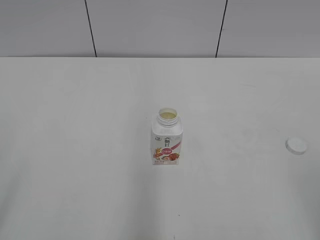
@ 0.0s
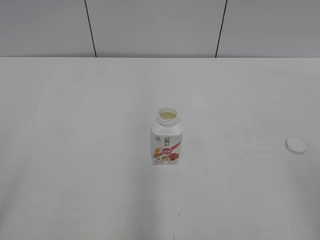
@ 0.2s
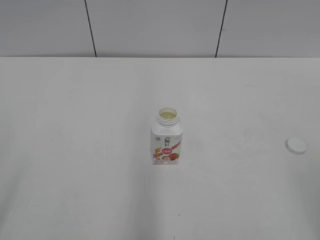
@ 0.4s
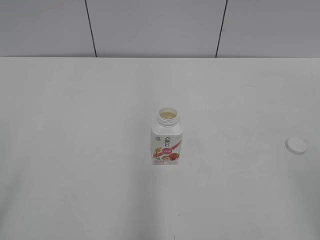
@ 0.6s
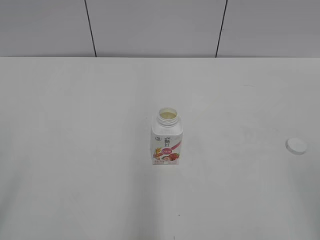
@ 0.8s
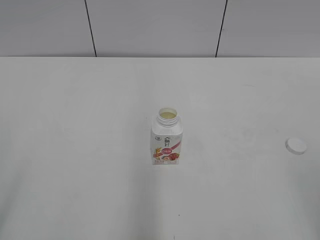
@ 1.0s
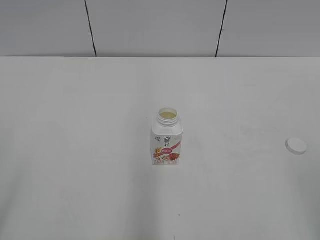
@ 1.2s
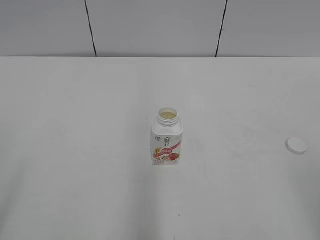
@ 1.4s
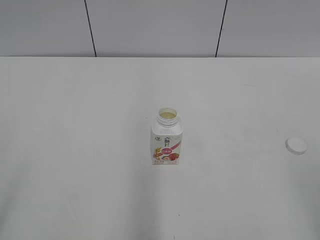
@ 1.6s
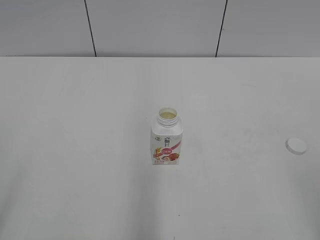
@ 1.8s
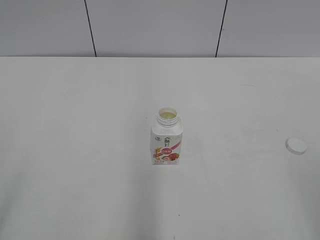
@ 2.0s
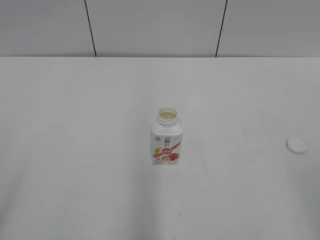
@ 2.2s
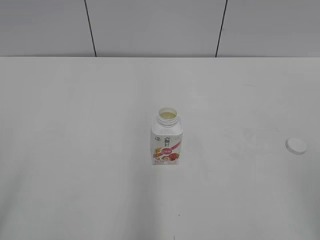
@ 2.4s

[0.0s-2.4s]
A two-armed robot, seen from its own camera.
0.0s to 2.4s: The two grippers keep their place.
